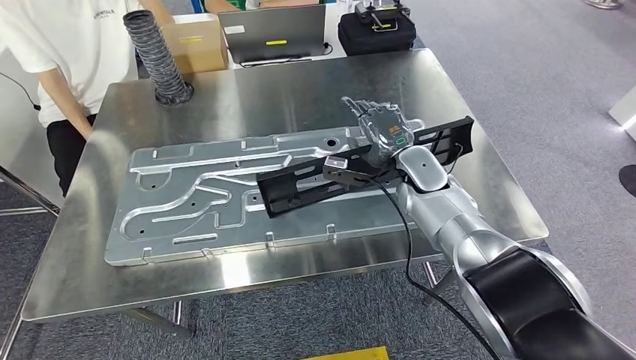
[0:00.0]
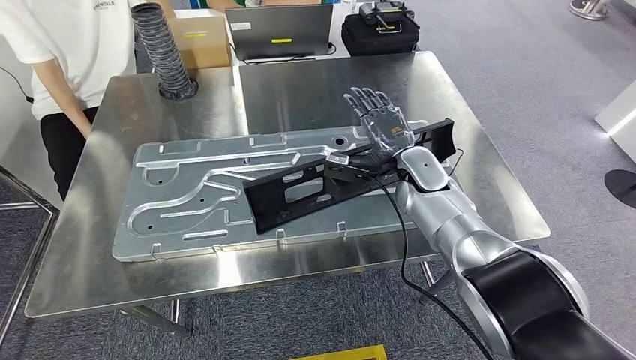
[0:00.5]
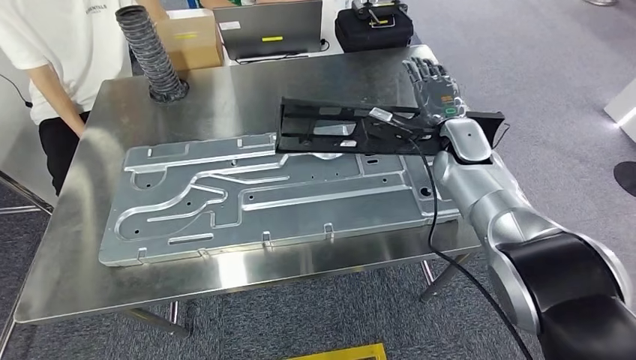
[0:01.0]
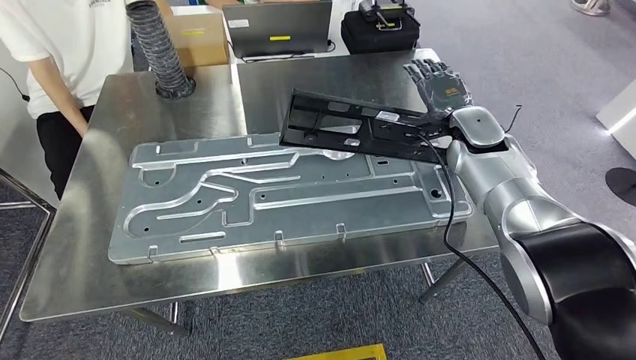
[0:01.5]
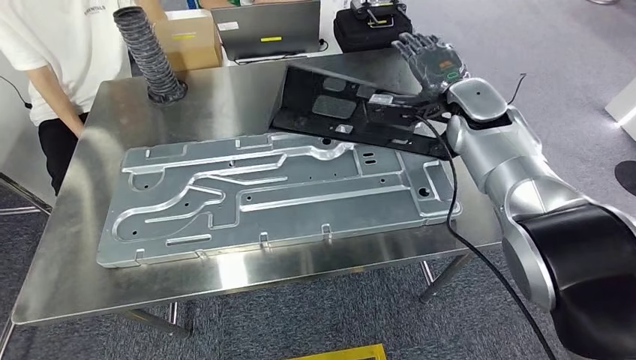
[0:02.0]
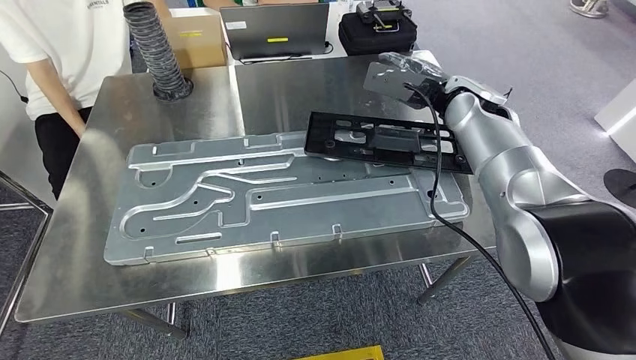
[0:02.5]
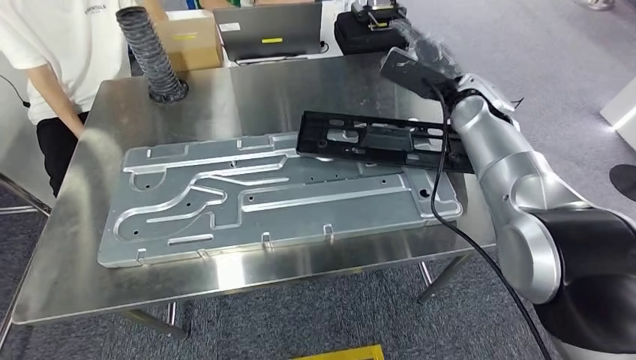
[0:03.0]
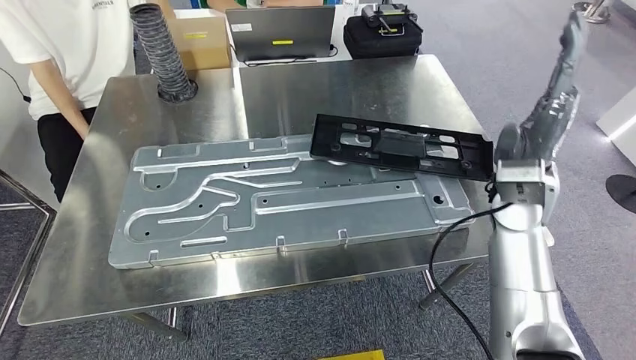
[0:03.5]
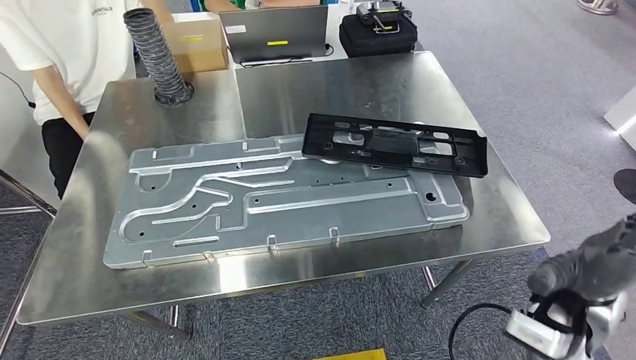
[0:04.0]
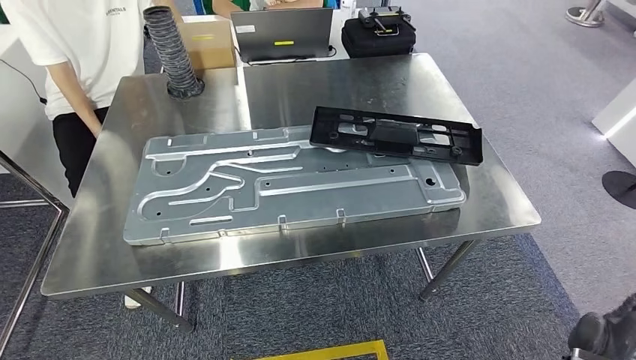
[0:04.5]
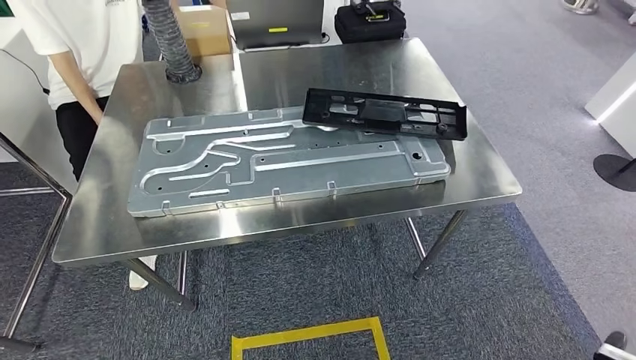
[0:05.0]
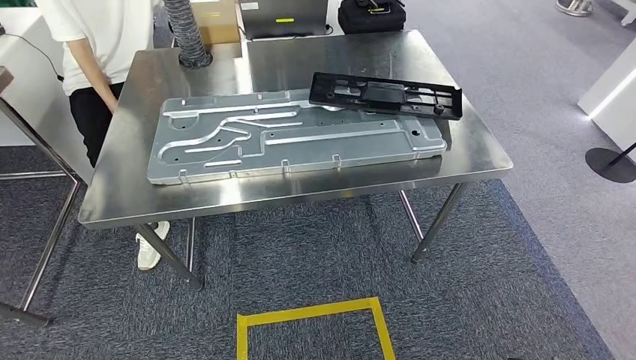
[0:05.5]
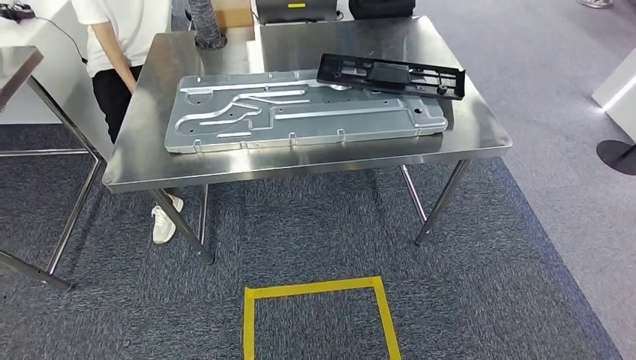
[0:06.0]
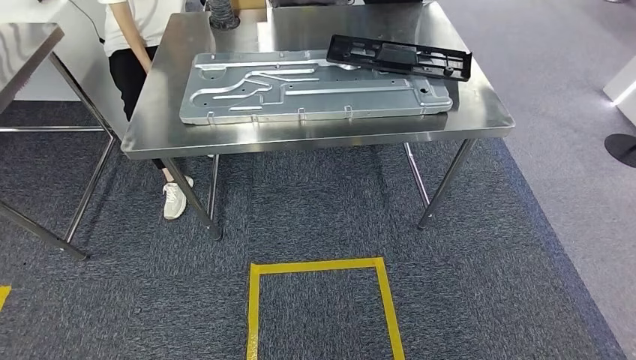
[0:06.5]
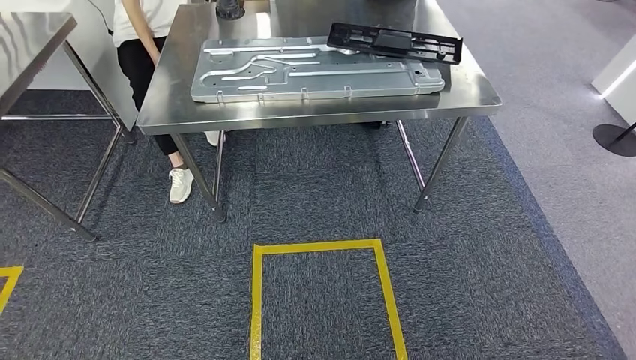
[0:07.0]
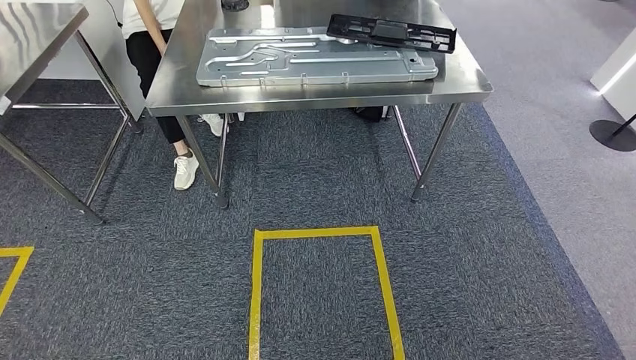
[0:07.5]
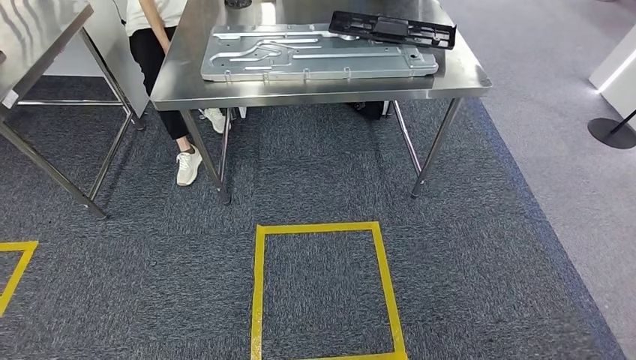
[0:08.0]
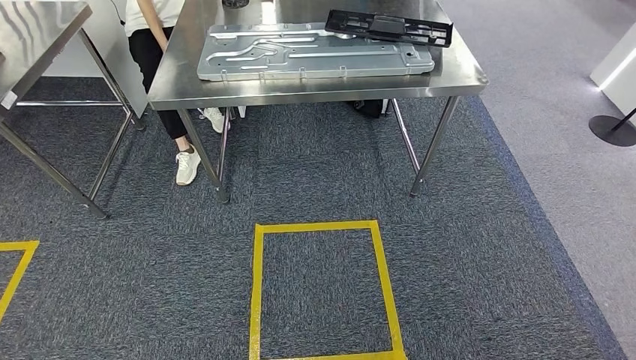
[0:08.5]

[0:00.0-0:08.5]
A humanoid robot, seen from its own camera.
Step, 0:00.0 to 0:03.0: Insert the large material into the corresponding slot on the workbench.
Step, 0:04.0 to 0:08.5: Return to the initial position at the shelf.
